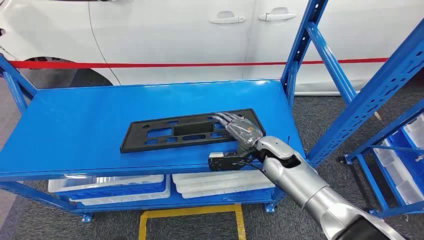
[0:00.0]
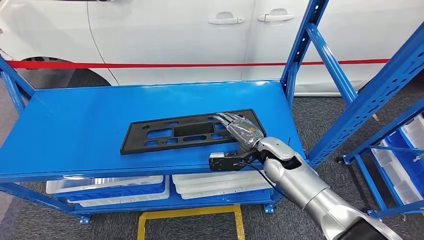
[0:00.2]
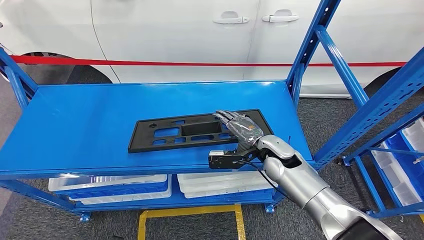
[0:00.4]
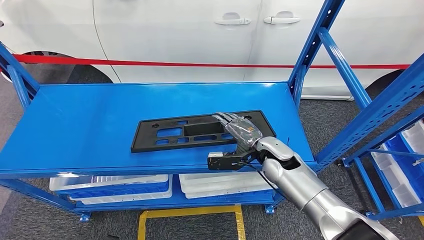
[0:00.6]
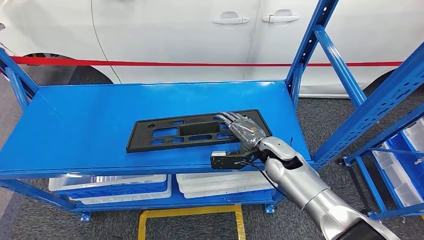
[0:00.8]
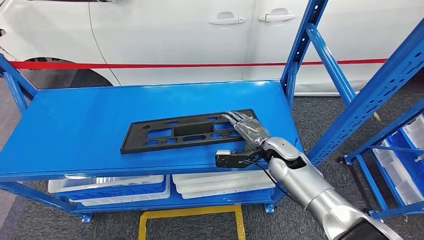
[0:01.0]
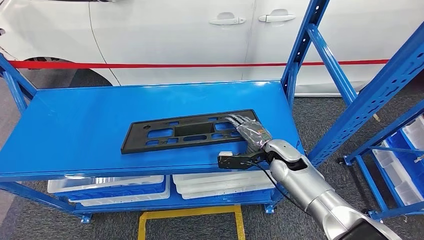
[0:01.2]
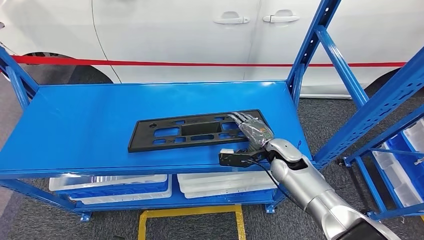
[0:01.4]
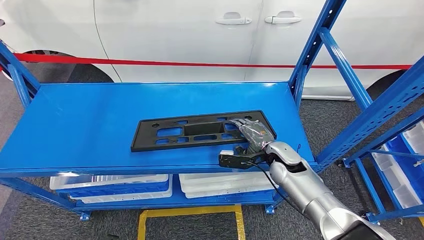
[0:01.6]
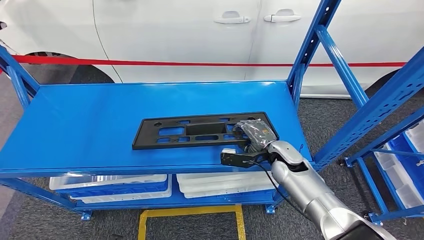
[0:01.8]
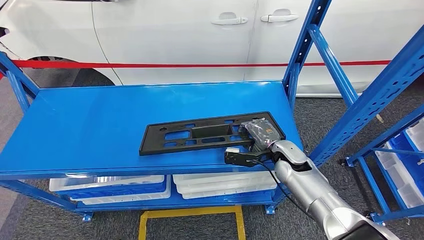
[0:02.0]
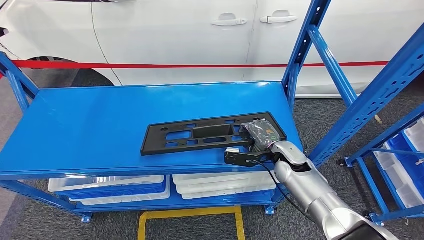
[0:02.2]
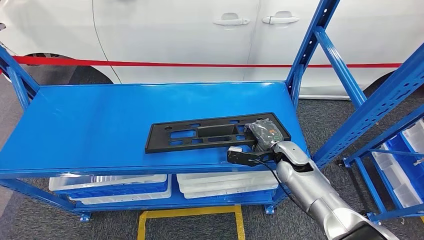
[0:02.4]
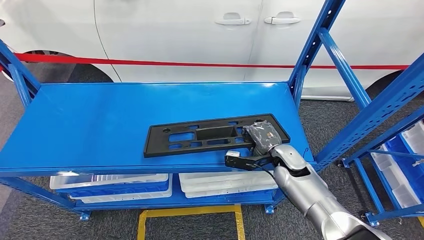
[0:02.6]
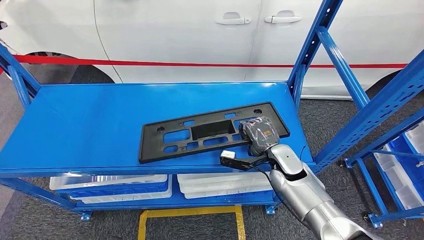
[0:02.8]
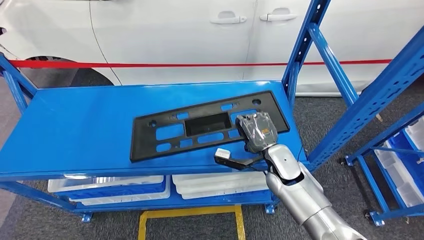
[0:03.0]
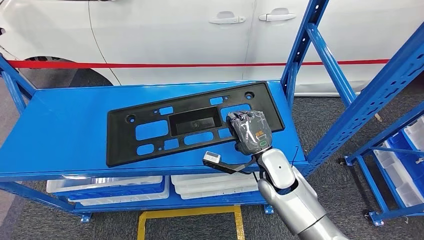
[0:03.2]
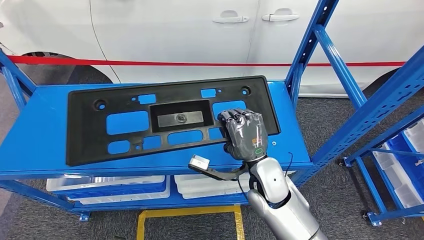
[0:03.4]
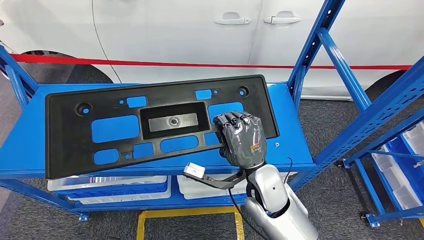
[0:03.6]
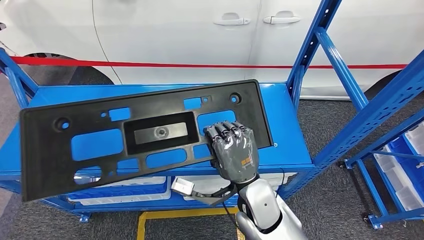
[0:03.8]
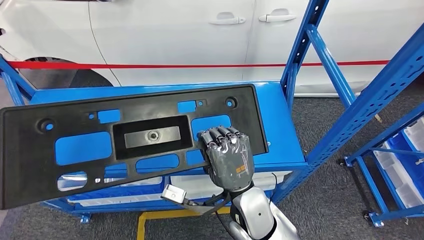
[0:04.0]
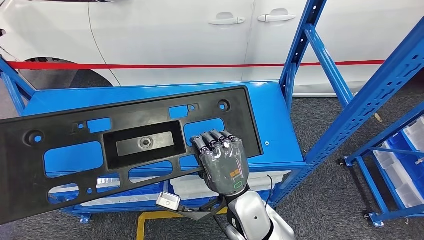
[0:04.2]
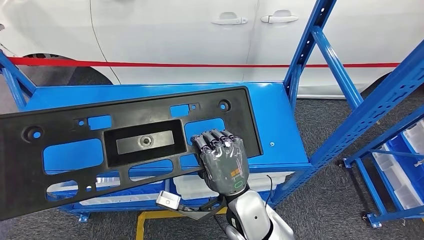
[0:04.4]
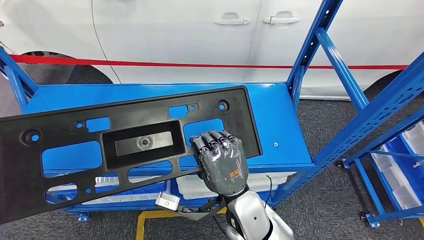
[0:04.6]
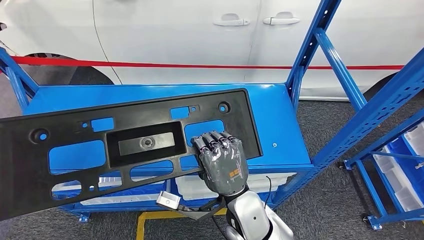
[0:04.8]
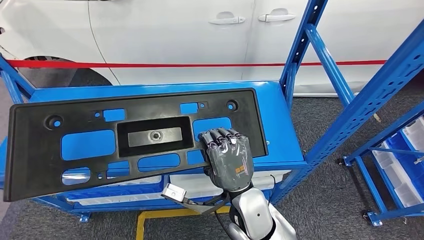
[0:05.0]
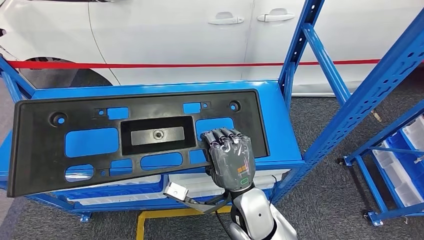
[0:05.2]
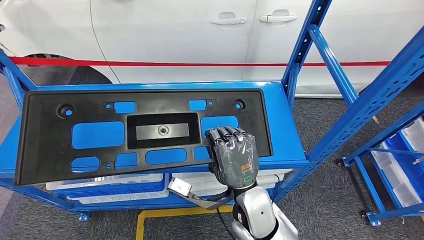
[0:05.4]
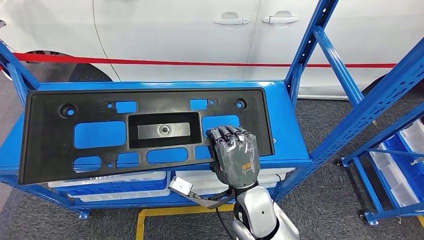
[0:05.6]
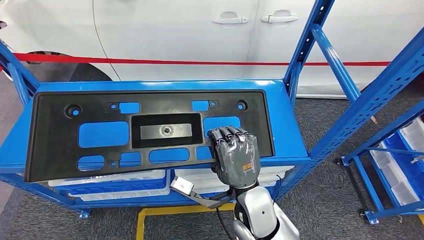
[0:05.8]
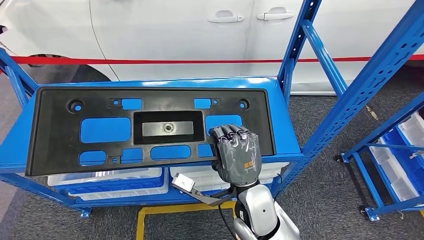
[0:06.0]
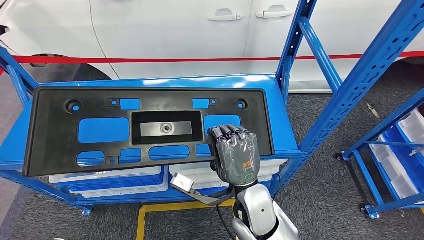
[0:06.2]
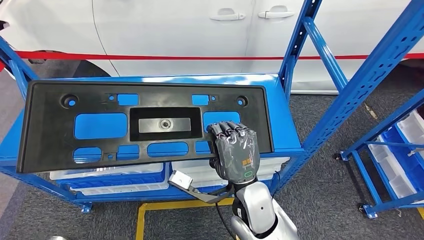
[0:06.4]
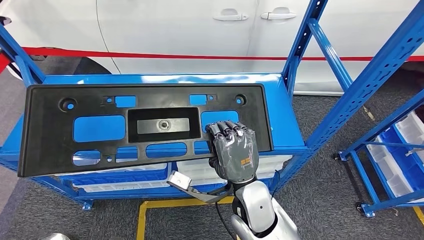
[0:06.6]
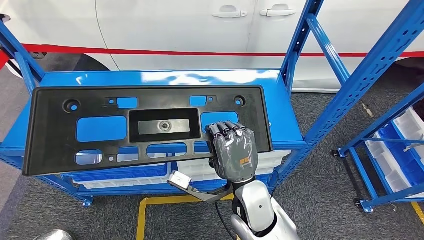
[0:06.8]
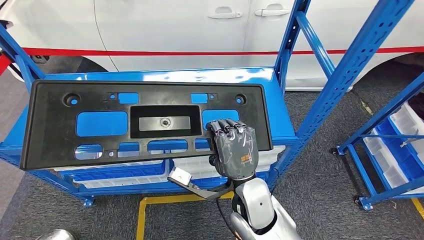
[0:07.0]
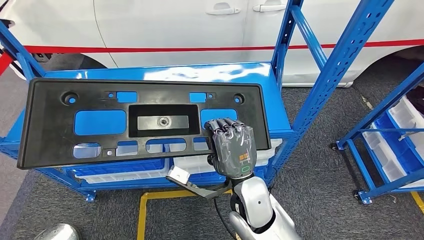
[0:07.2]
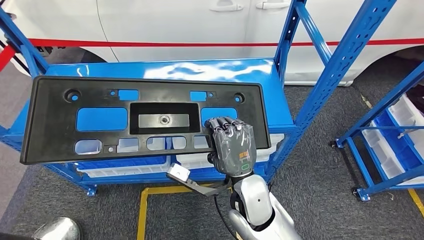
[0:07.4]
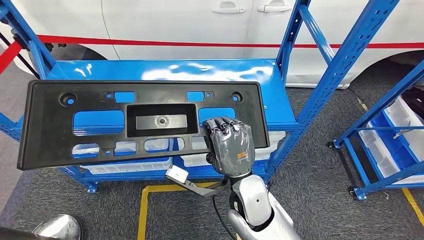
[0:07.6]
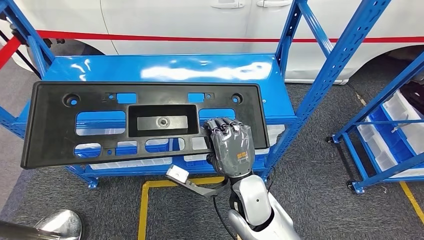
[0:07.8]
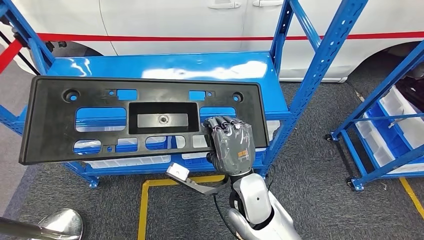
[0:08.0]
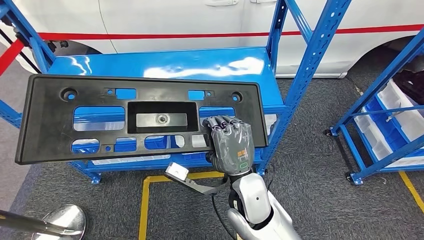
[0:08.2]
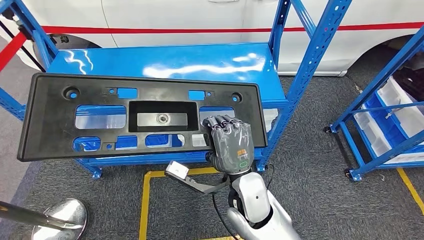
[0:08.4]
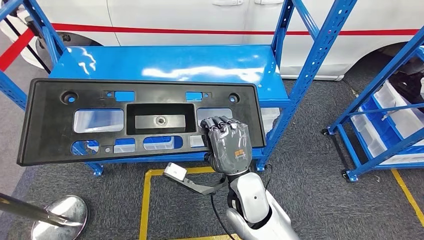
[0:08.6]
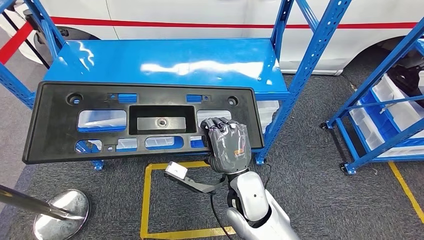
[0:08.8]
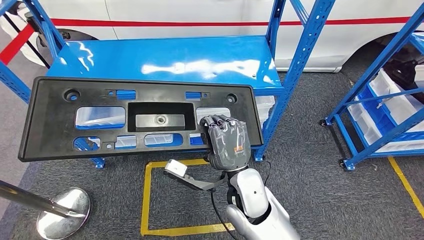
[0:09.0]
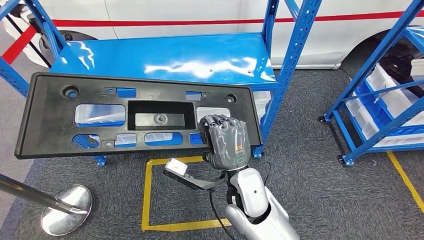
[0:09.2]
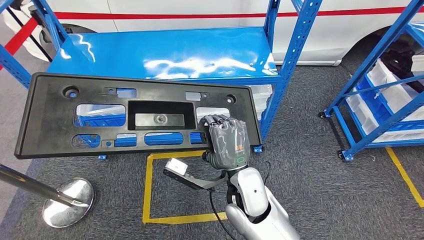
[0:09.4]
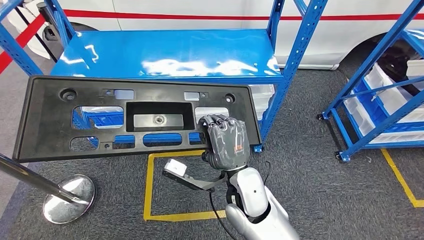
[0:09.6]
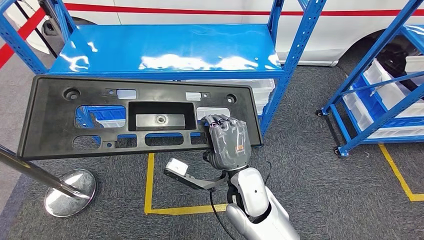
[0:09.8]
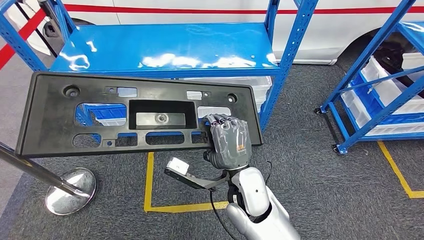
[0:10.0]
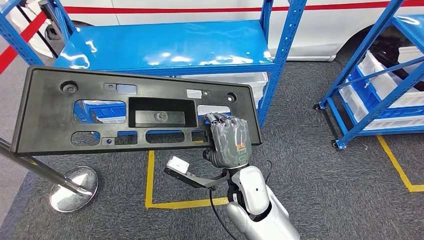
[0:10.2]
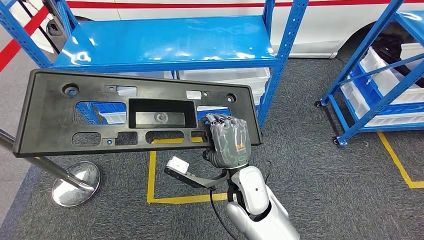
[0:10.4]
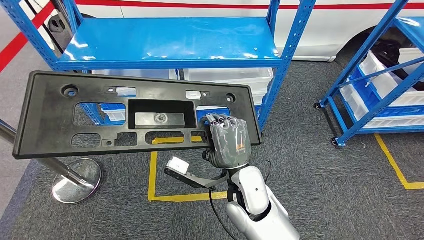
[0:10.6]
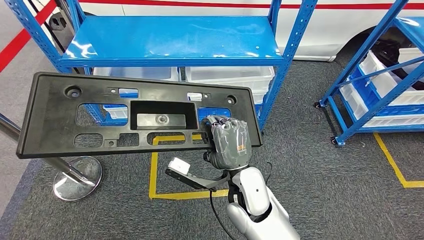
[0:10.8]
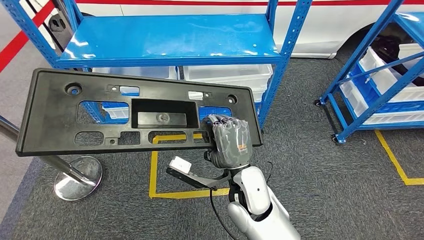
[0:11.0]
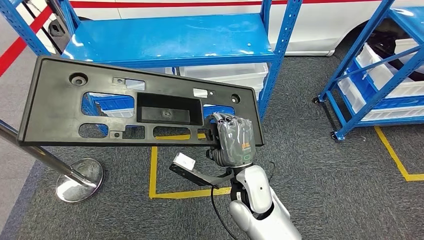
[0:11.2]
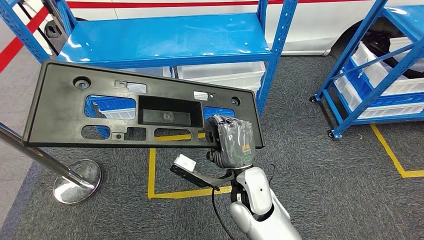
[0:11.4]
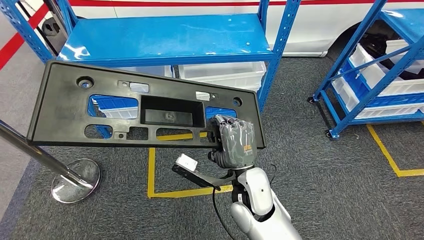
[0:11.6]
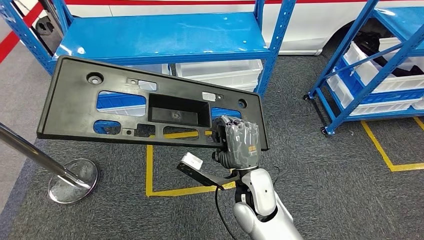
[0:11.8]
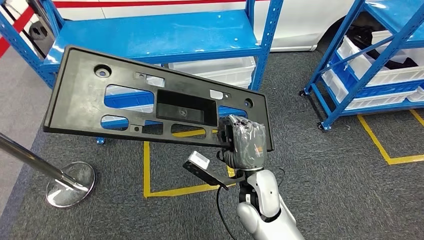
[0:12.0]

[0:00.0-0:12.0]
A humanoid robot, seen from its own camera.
Step, 0:00.0 to 0:06.2: Pick up the large parts from the shelf.

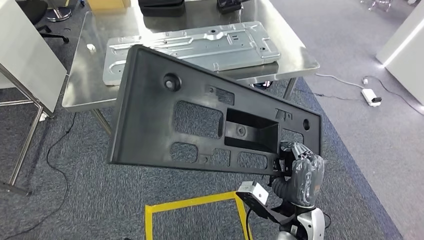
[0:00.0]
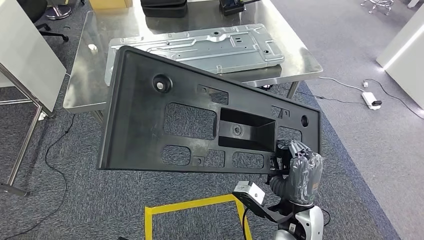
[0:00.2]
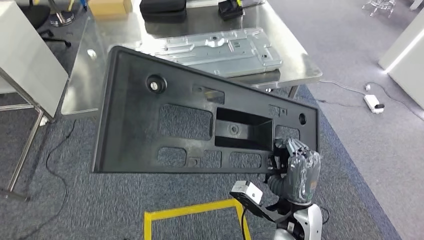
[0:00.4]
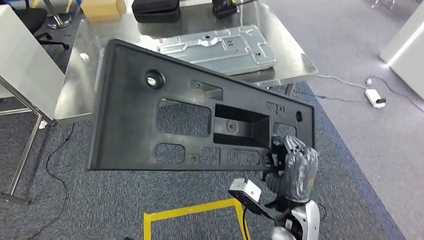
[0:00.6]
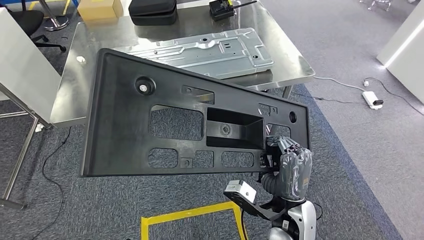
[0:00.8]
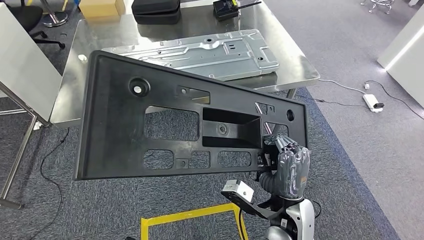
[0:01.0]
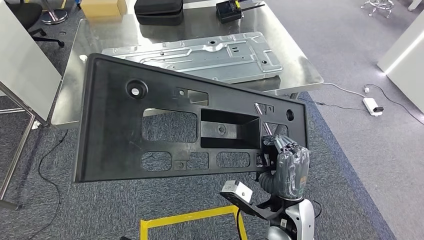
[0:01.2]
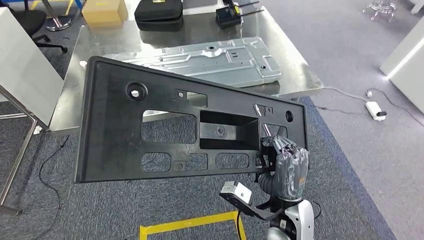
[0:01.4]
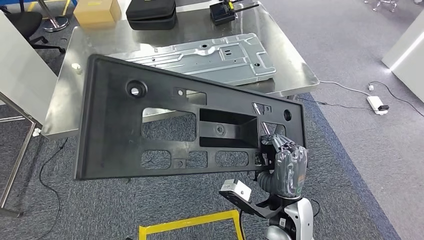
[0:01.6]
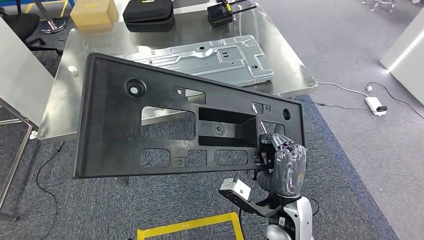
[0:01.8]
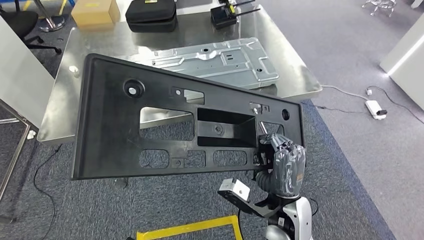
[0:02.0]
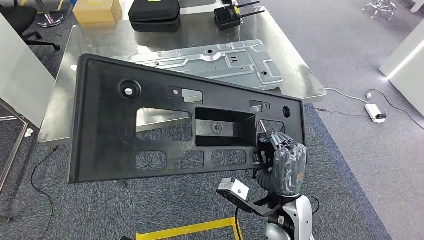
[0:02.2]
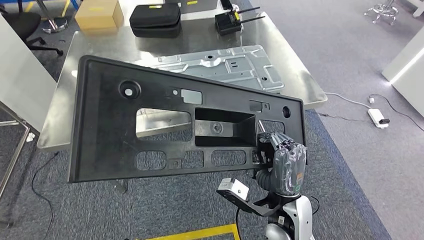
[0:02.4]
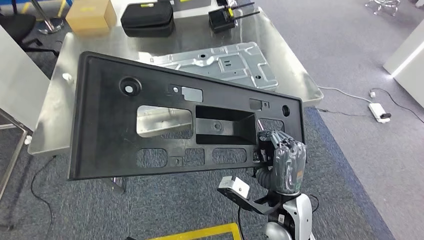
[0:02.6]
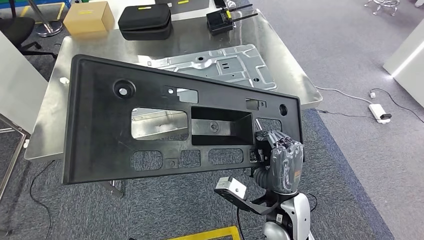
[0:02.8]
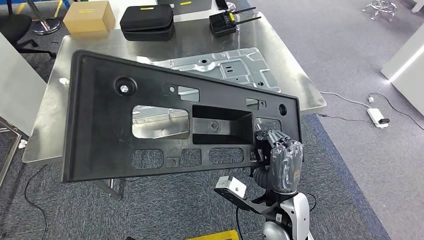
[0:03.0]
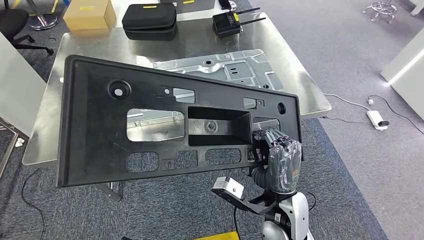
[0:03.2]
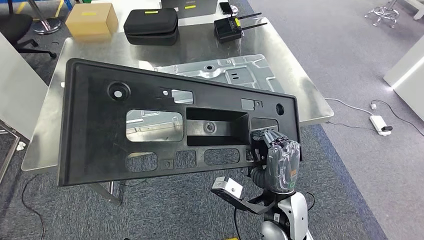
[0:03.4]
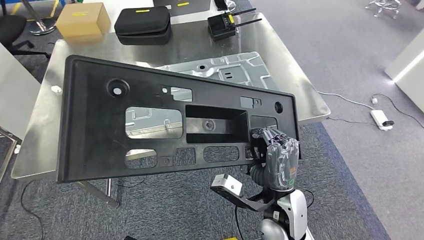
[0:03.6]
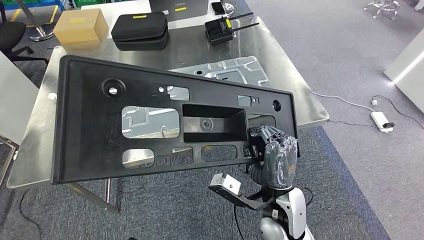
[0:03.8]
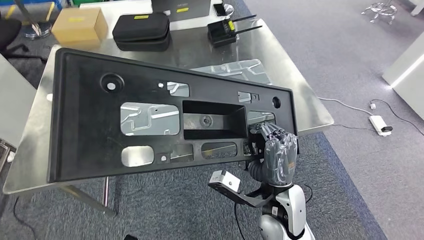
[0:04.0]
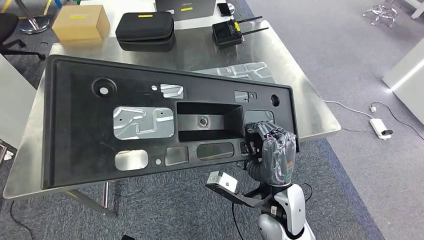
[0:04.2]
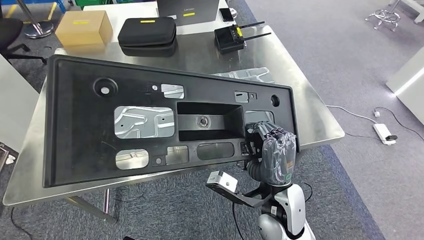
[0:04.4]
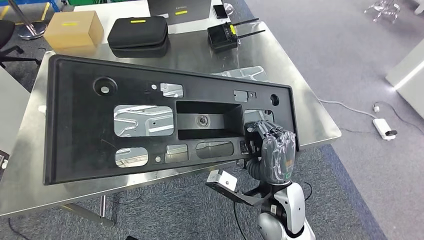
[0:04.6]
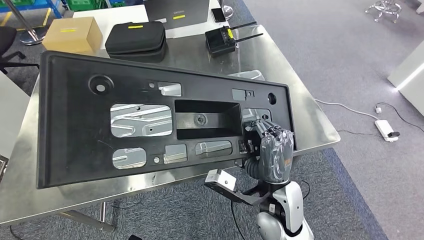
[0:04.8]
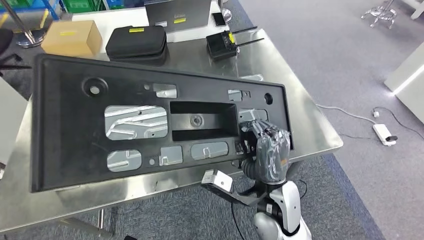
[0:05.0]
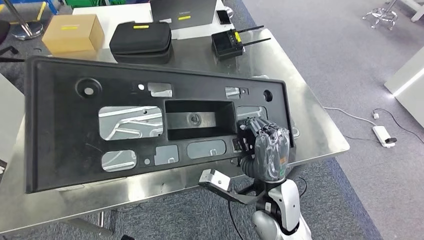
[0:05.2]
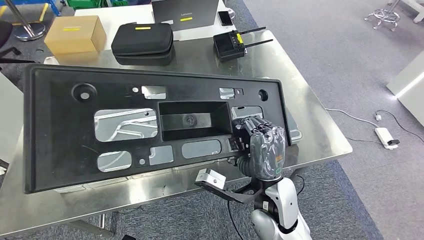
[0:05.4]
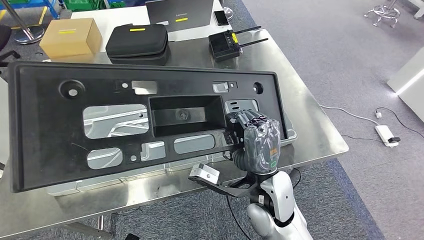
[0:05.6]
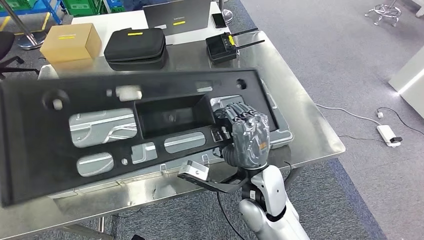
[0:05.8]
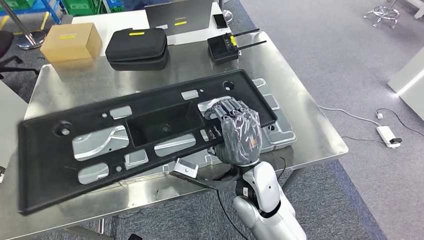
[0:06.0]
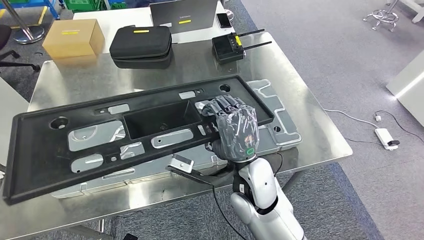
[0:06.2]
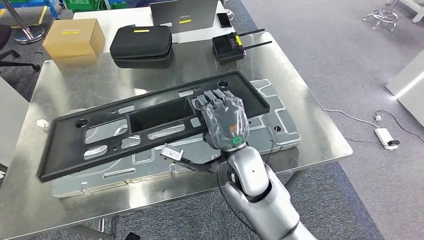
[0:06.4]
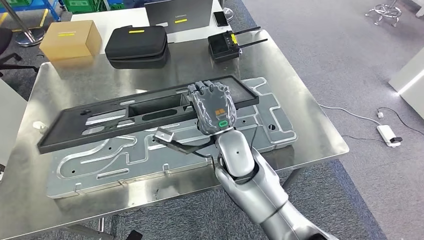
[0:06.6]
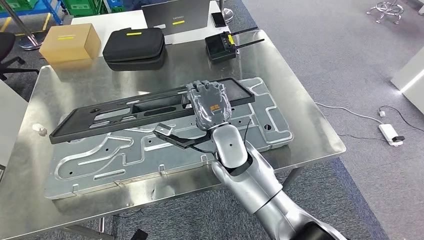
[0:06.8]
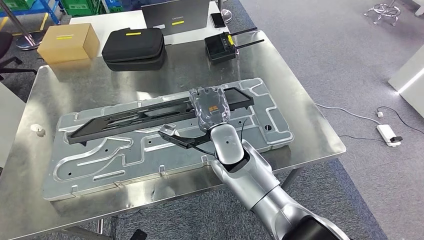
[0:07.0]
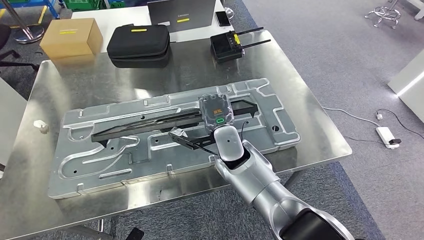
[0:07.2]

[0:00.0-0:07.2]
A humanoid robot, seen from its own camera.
Step, 0:00.0 to 0:03.8: Move the large parts to the workbench.
